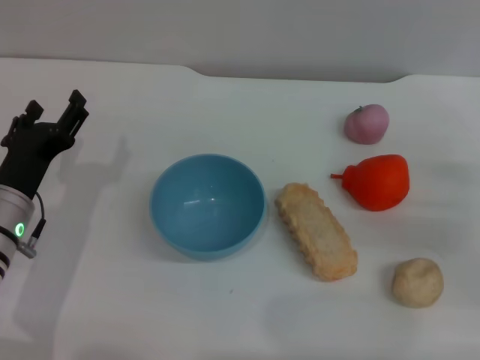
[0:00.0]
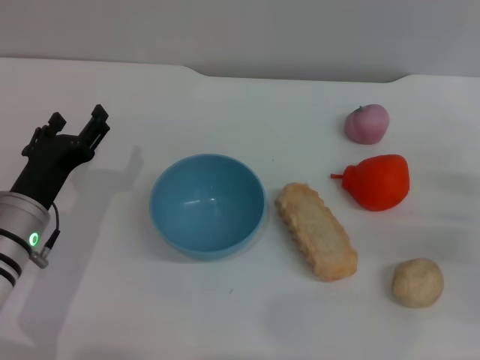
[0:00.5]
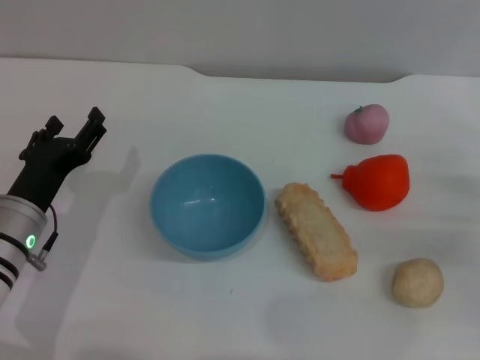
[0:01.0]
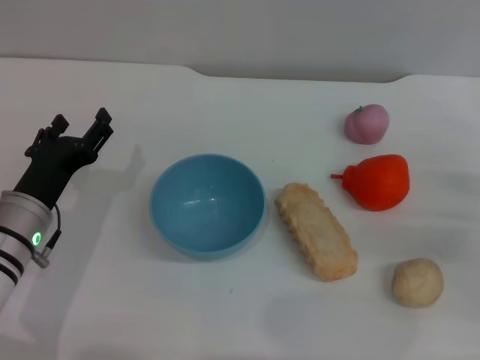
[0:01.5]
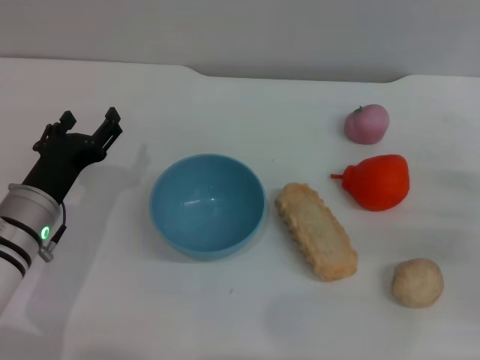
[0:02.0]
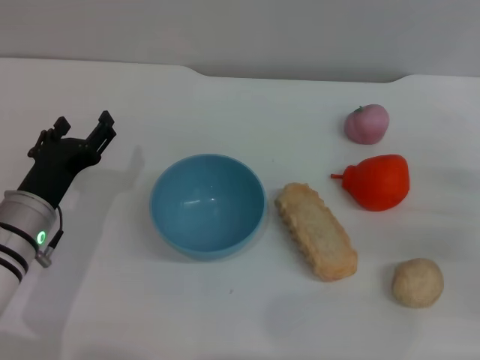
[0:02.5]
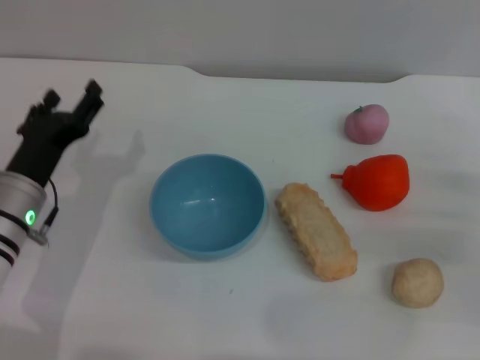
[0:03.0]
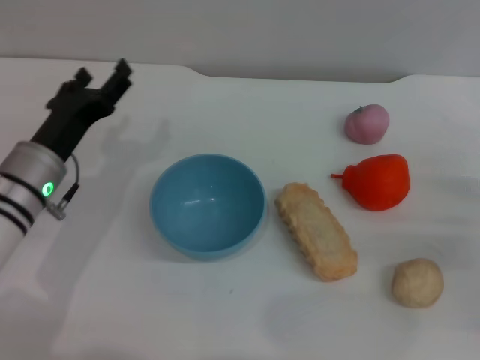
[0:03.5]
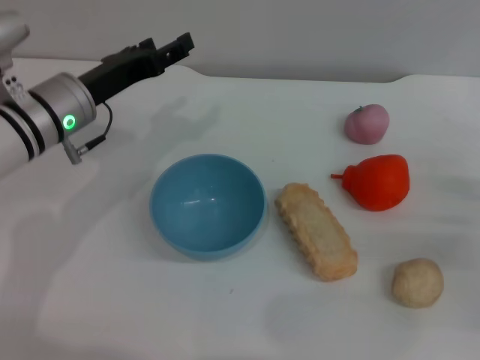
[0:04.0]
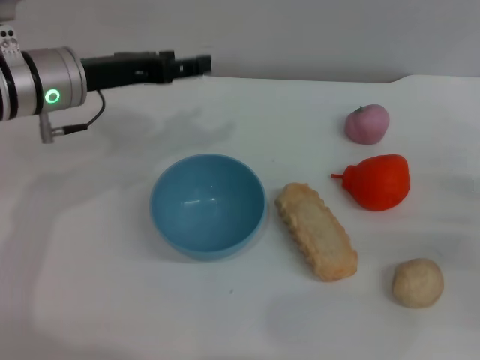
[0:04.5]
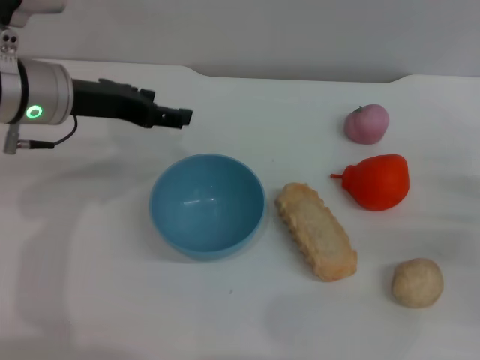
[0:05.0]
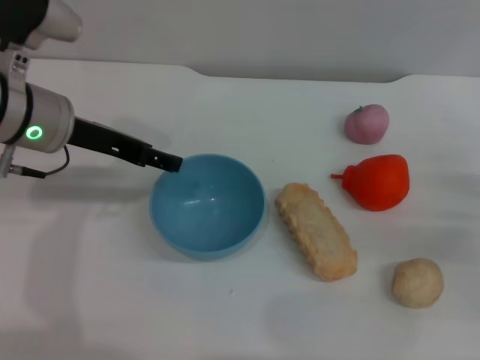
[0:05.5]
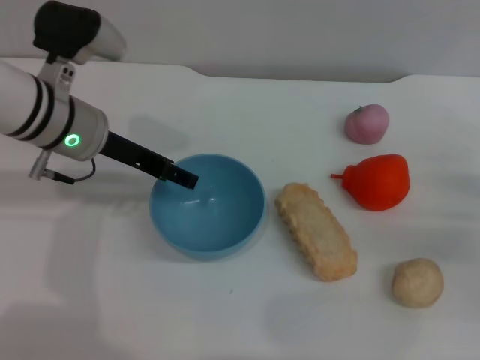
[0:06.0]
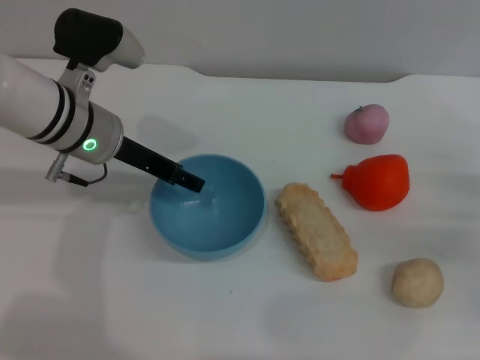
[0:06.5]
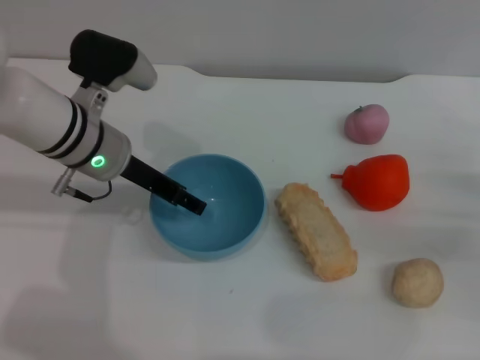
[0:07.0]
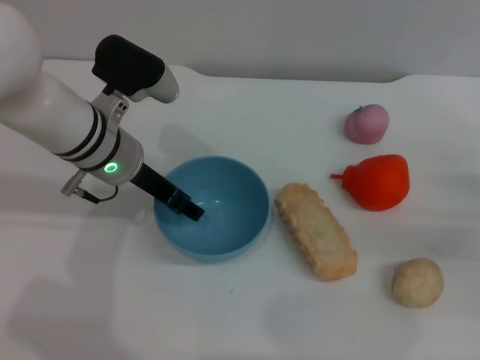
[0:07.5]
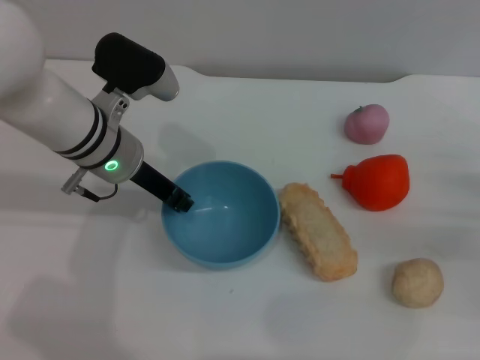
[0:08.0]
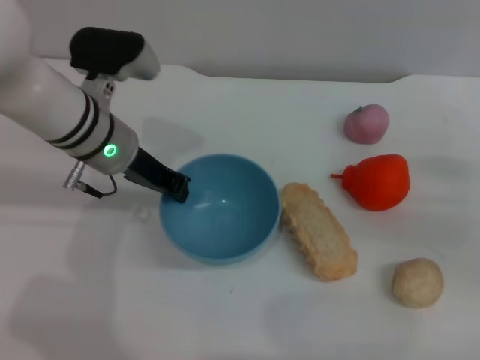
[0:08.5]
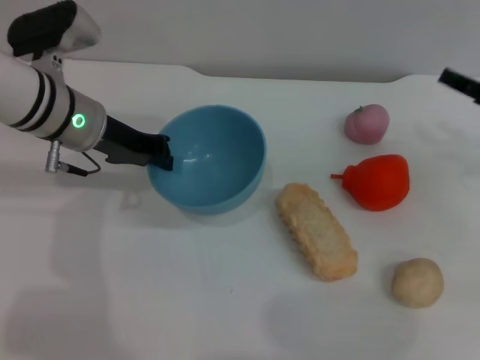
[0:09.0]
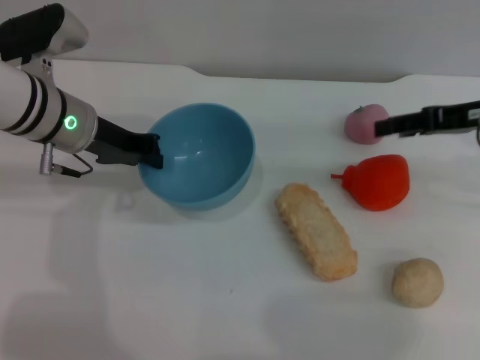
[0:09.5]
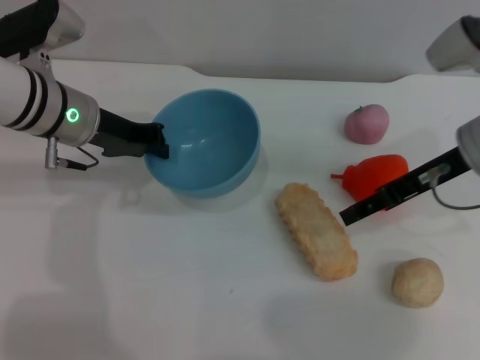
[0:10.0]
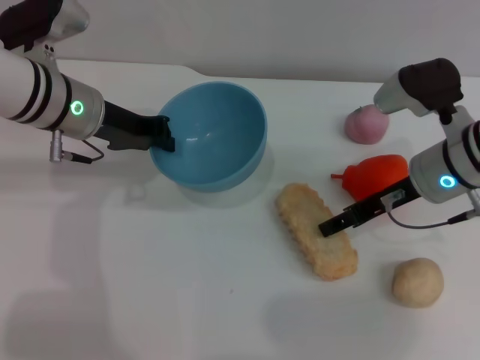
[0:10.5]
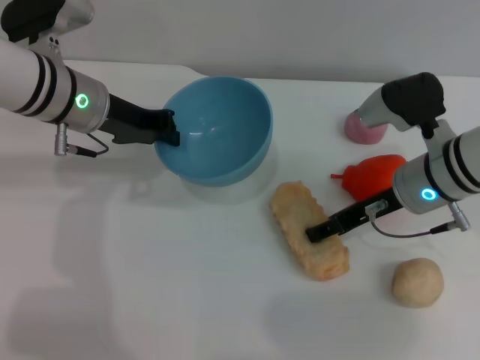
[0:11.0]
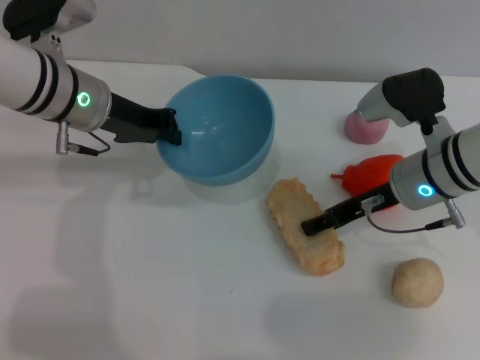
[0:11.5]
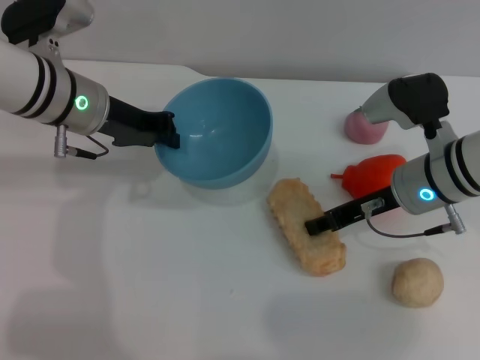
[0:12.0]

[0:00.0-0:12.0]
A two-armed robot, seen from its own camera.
Task of the whole recording: put the bread into the blue bowl and pour it out repeatedly.
Step, 0:00.0 to 0:09.0: Pick up the bowl with the left gripper.
0:00.0 to 0:02.0: There are only small adjustments of the grippers.
0:02.0 to 0:04.0: The left gripper travels forward and upward by approximately 10 cm.
0:06.0 to 0:08.0: The left gripper closes.
0:08.0 to 0:10.0: The left gripper ends up about 5 cm from where it was, and closes; the right gripper travels to the left, upward and forward by about 20 cm.
0:10.0 to 0:12.0: The right gripper heads downward, covering about 5 cm.

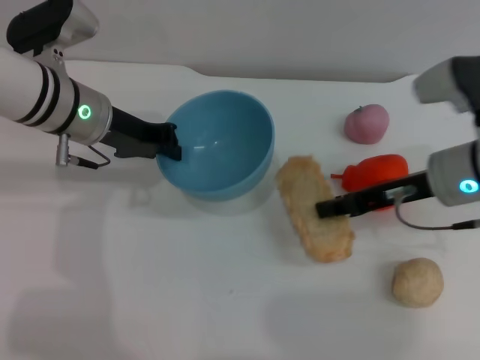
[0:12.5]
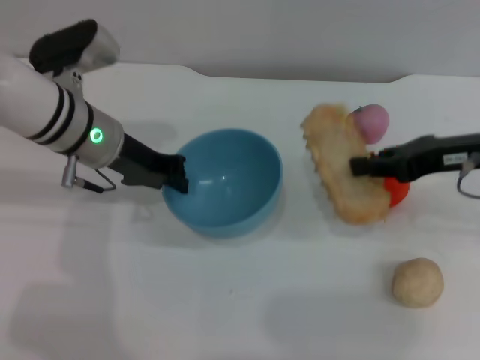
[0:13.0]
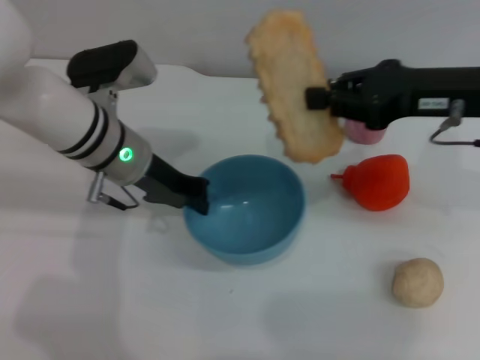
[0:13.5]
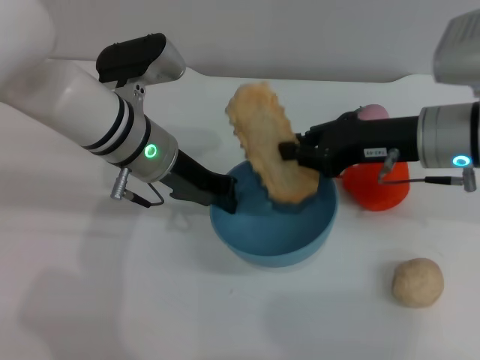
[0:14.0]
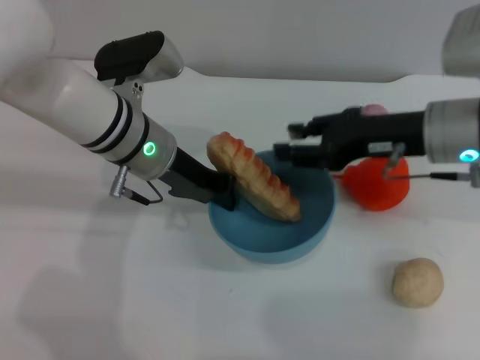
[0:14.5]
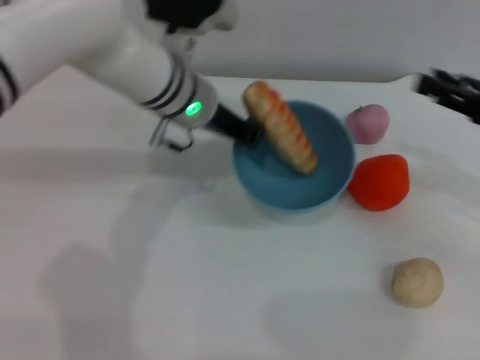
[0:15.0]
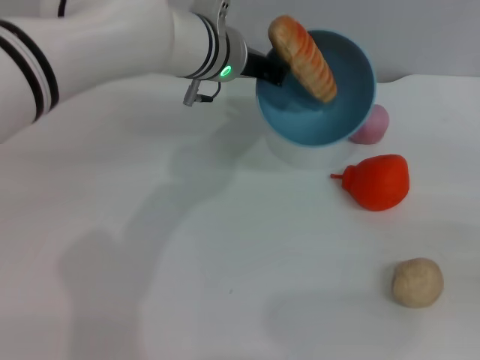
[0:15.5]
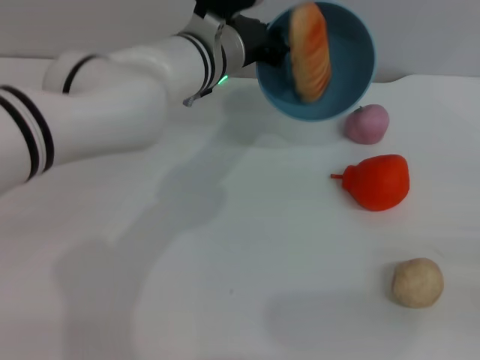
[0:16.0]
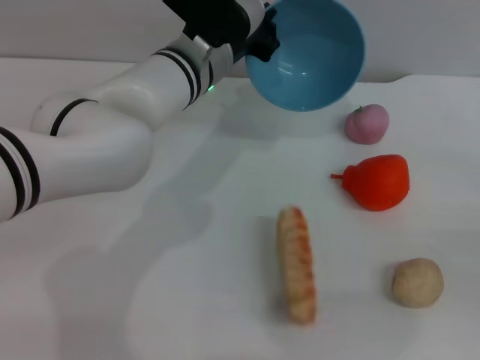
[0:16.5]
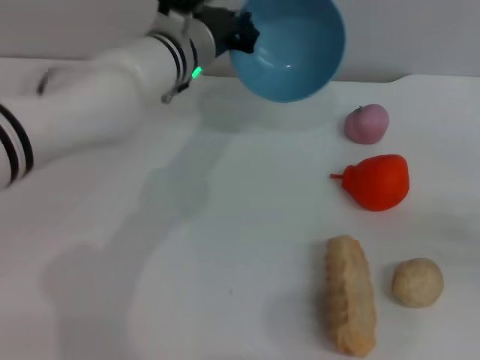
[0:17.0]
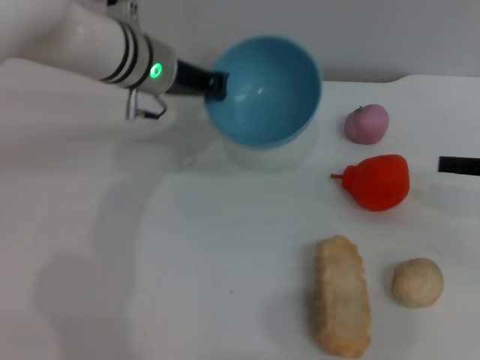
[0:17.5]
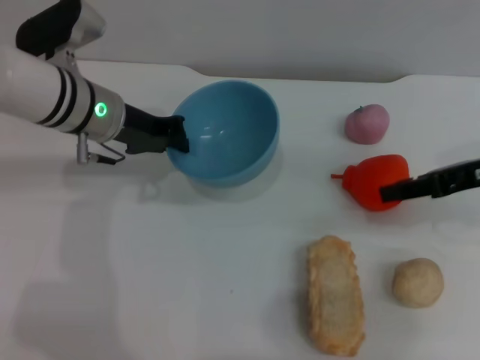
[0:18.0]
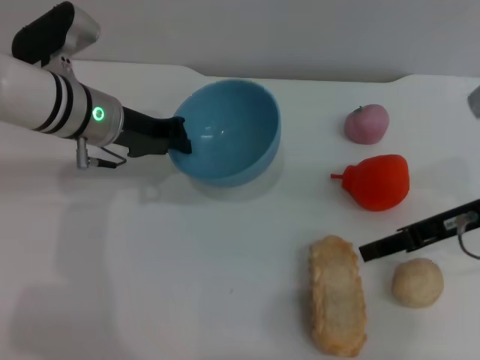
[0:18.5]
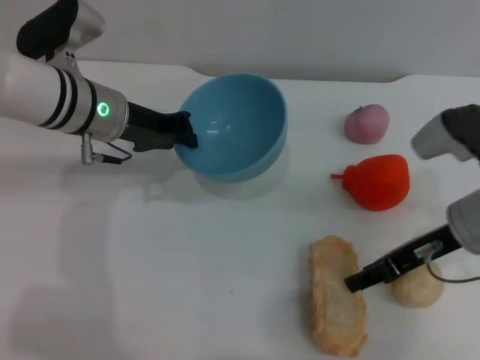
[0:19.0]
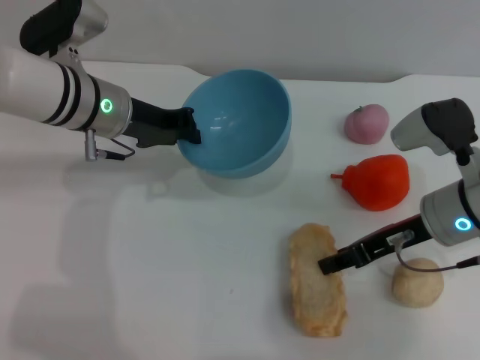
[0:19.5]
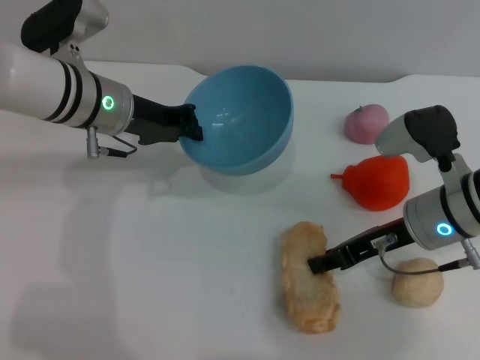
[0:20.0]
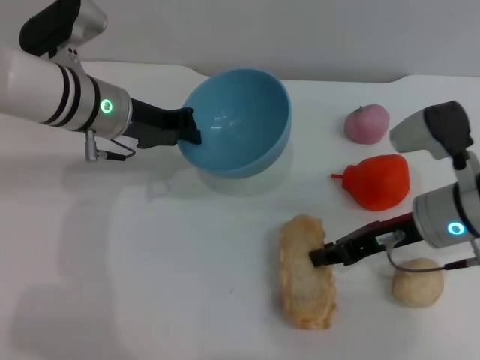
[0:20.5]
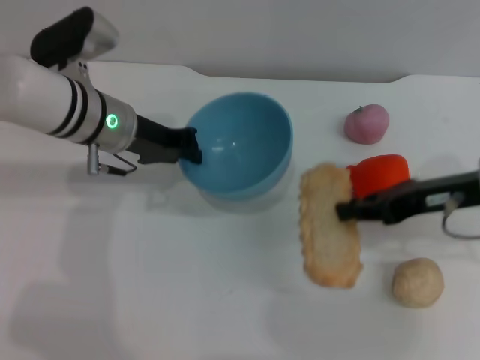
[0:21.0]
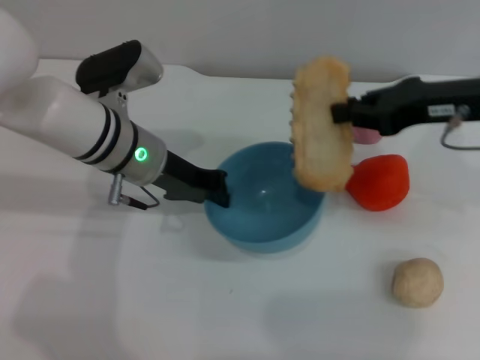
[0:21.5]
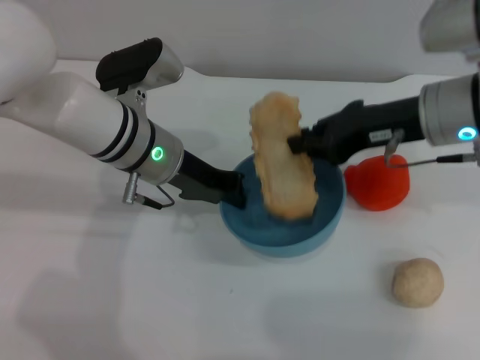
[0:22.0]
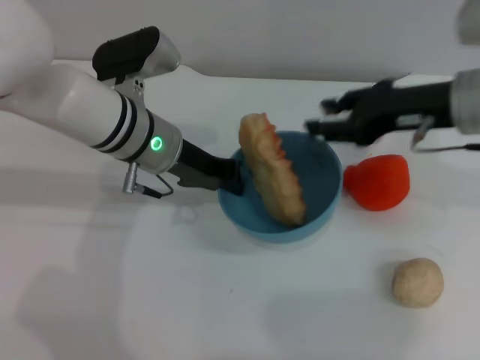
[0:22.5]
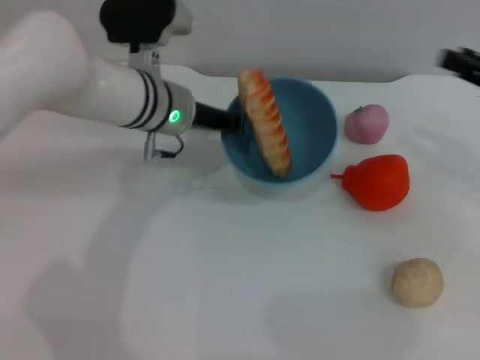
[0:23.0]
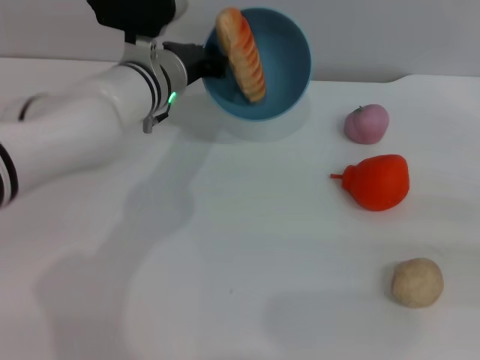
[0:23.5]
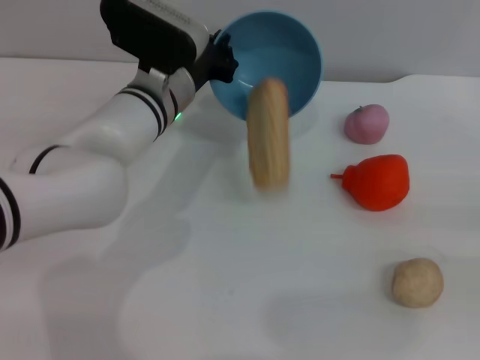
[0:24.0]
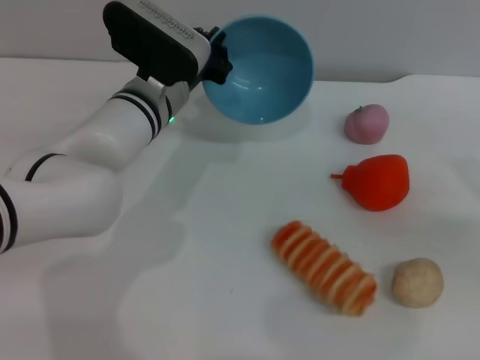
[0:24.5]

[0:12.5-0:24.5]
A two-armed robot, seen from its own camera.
Task of the whole recording: put the bread into the blue bowl and pour it out repeatedly.
Step, 0:13.0 to 0:14.5: Place the bread into the bowl.
Step, 0:15.0 to 0:16.5: Pour the bread out of the bowl.
Step, 0:17.0 to 0:20.5: Pick up the bread with the right gripper.
Step, 0:21.0 to 0:22.5: Place the bread into the bowl.
Step, 0:23.0 to 0:24.5: Pour the bread out of the bowl.
0:12.5 to 0:14.5: The left gripper shifts approximately 5 cm to the right.
0:14.5 to 0:16.5: The left gripper heads to the right, covering roughly 5 cm, while the right gripper is displaced to the right and backward by approximately 30 cm.
0:16.5 to 0:18.5: The left gripper travels to the left by approximately 10 cm. Meanwhile the right gripper moves to the left and forward, some 20 cm.
0:18.5 to 0:20.5: The right gripper is displaced to the left by some 5 cm, and closes.
0:20.5 to 0:22.5: The right gripper heads upward, covering roughly 10 cm, while the left gripper shifts some 5 cm to the right.
0:22.5 to 0:24.5: The right gripper is displaced to the right, backward and downward by roughly 20 cm.

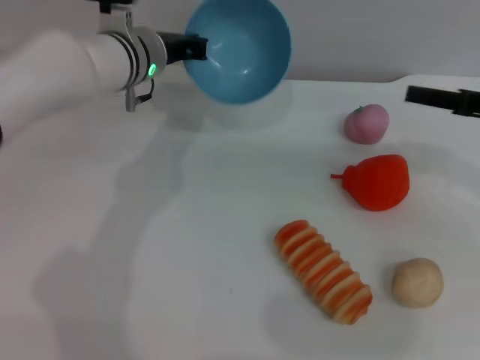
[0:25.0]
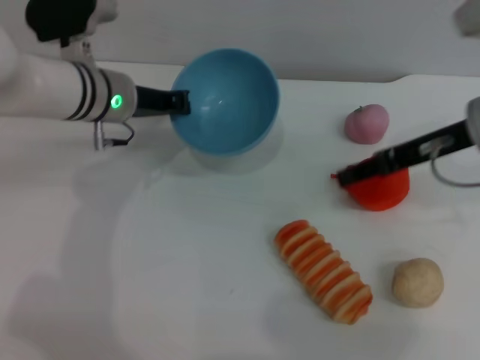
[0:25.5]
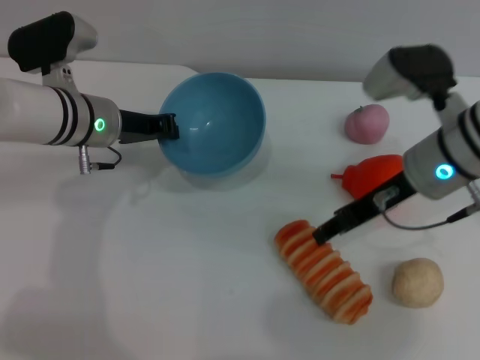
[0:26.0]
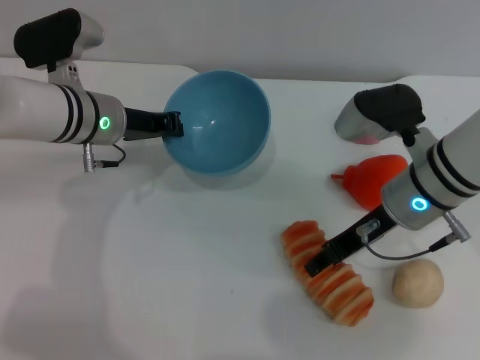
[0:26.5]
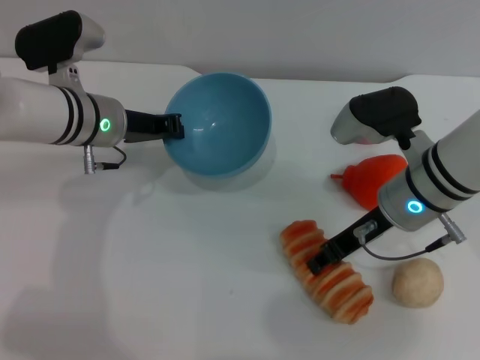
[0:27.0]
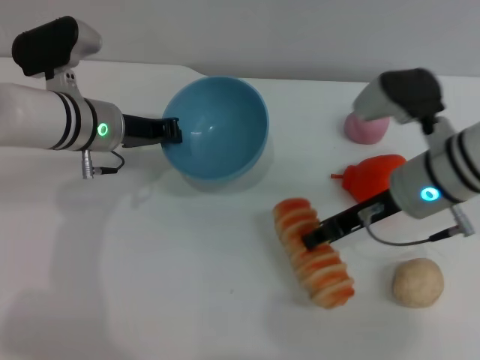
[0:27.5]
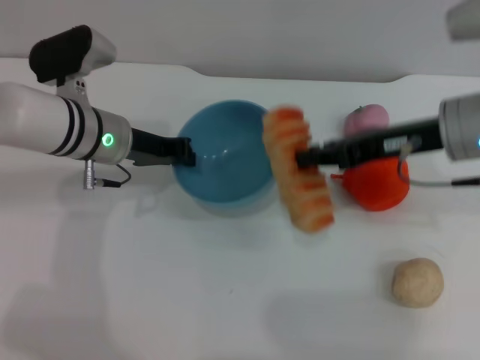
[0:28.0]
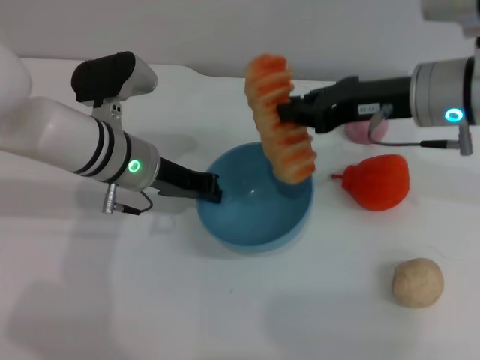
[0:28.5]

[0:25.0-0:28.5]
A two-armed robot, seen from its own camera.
Task of the whole recording: put the bread into the blue bowl and pour it out repeatedly.
Step, 0:25.0 to 0:27.5: Pick up the bread with the right gripper.
0:25.0 to 0:27.0: The left gripper shifts by roughly 10 cm. The right gripper is displaced to the left by about 15 cm.
0:27.0 to 0:28.5: The right gripper travels upward by some 10 cm, and closes.
